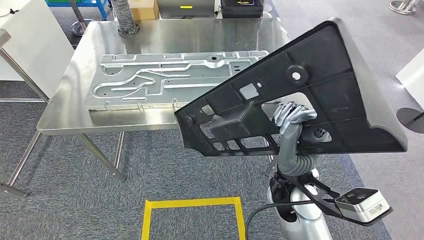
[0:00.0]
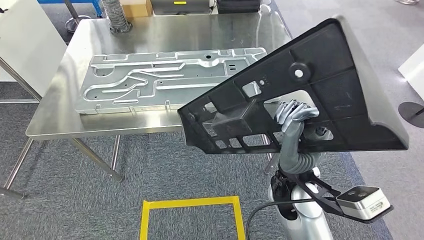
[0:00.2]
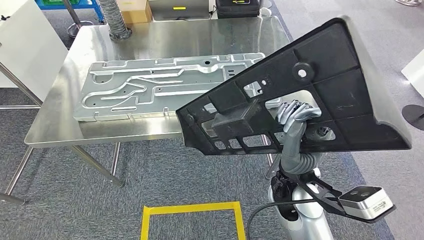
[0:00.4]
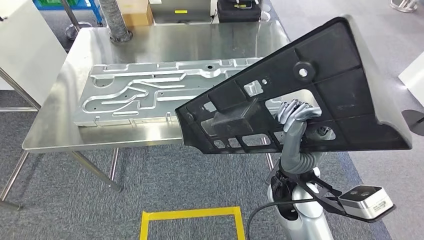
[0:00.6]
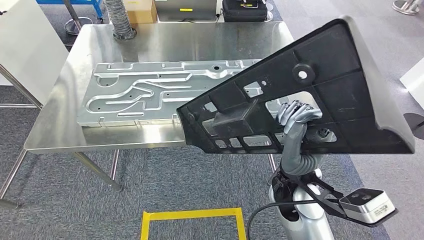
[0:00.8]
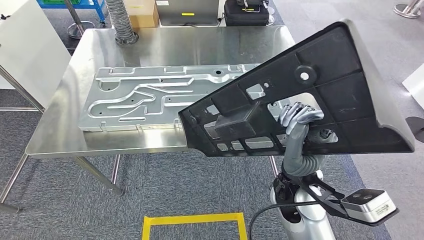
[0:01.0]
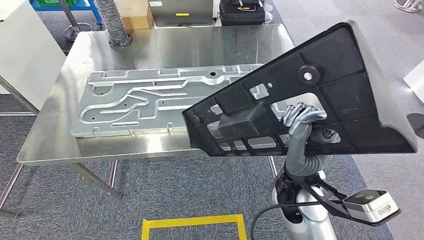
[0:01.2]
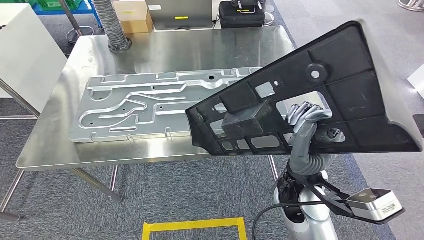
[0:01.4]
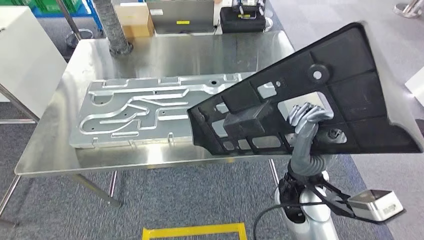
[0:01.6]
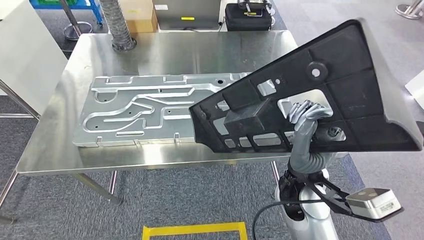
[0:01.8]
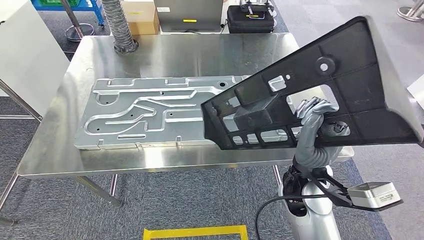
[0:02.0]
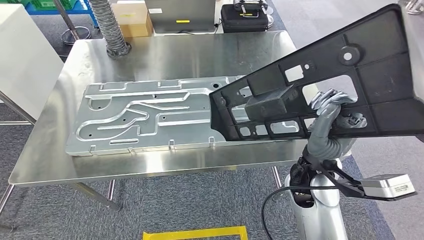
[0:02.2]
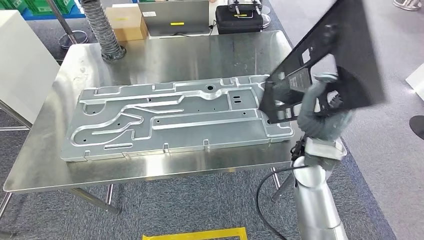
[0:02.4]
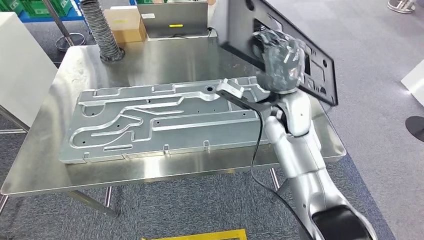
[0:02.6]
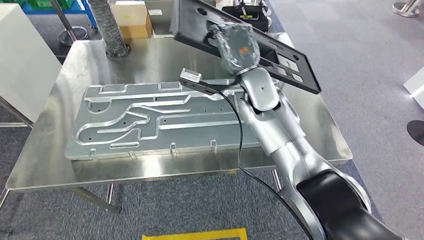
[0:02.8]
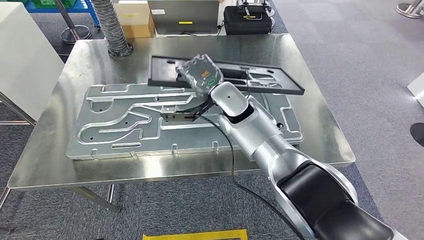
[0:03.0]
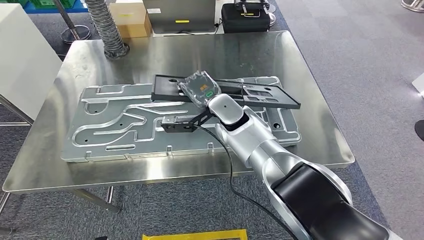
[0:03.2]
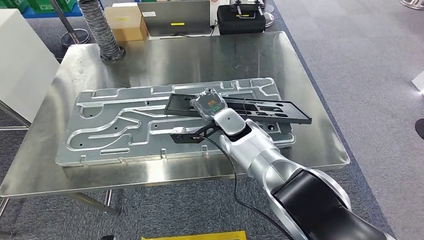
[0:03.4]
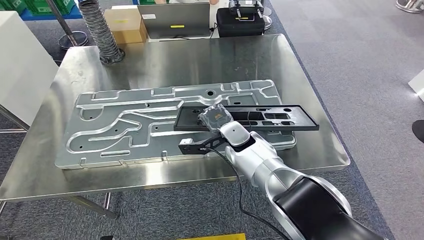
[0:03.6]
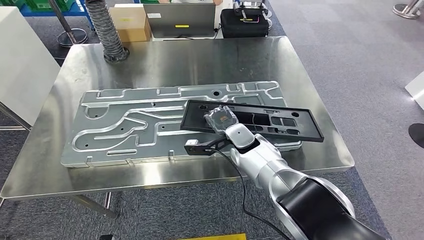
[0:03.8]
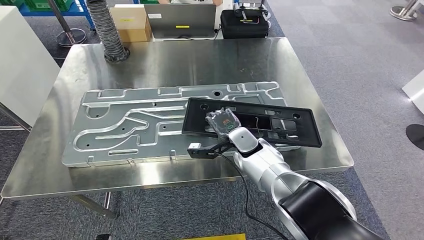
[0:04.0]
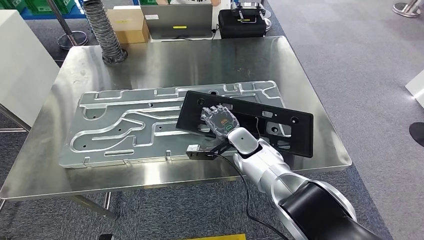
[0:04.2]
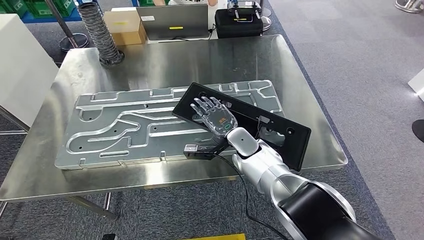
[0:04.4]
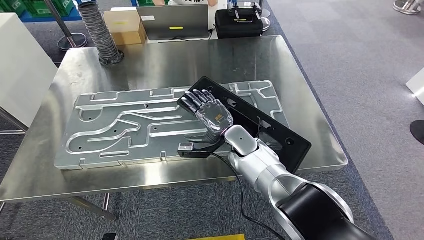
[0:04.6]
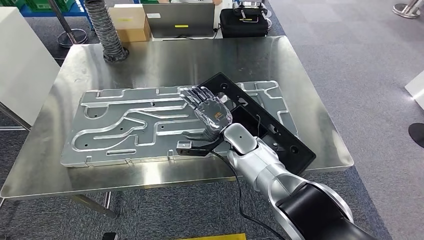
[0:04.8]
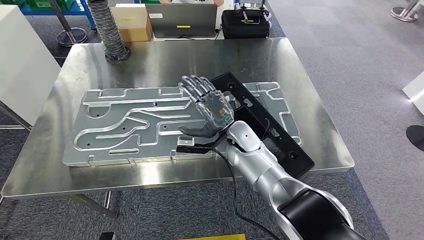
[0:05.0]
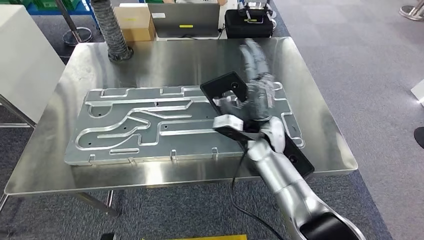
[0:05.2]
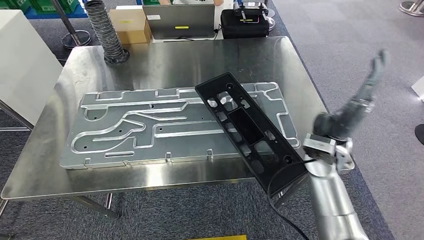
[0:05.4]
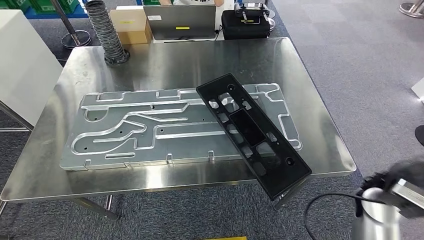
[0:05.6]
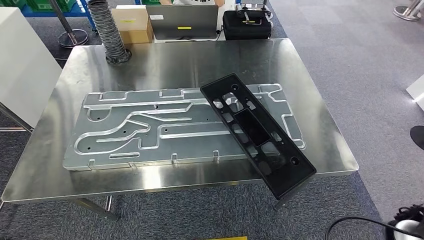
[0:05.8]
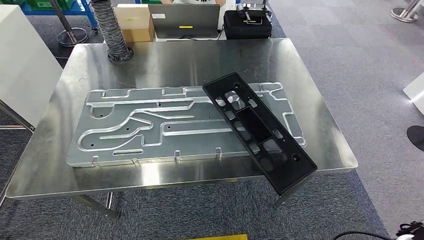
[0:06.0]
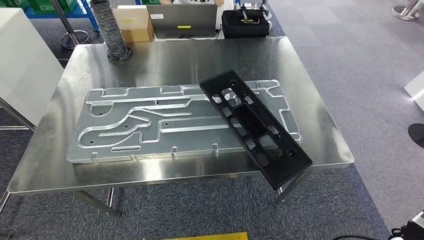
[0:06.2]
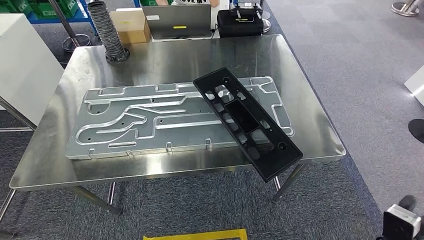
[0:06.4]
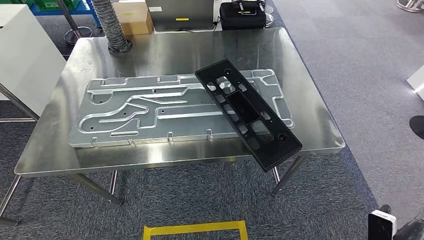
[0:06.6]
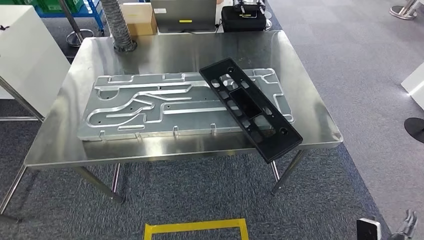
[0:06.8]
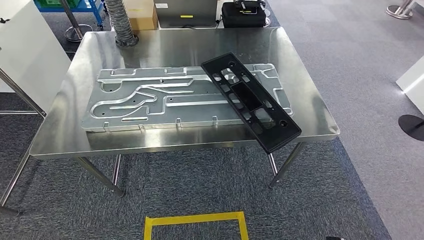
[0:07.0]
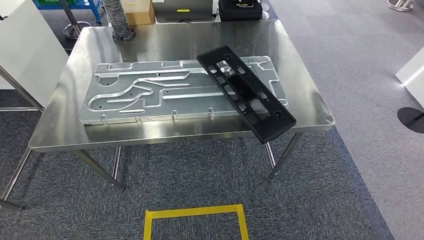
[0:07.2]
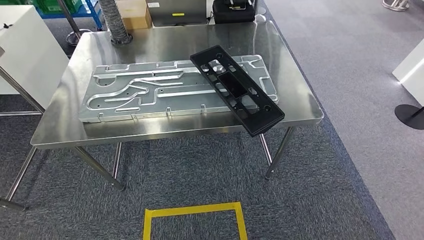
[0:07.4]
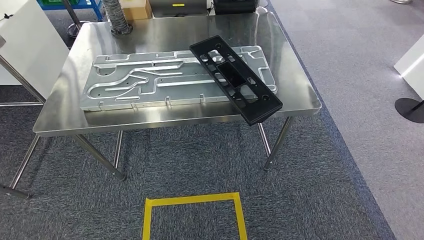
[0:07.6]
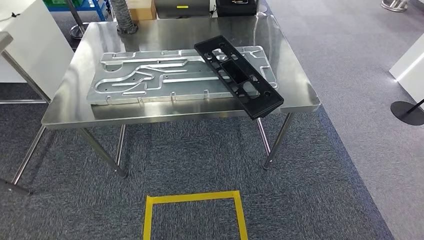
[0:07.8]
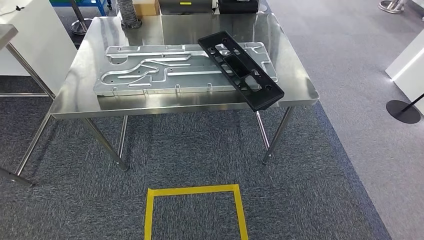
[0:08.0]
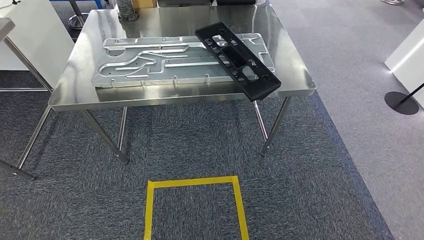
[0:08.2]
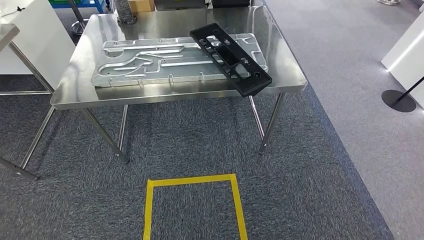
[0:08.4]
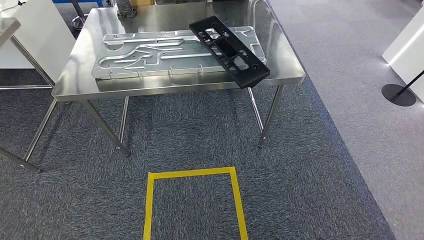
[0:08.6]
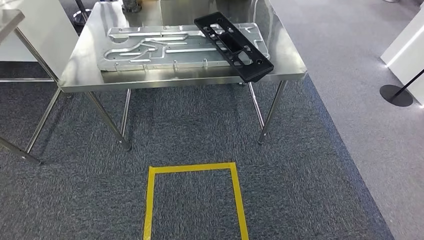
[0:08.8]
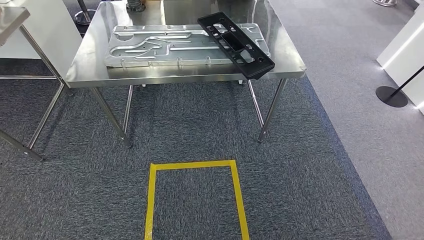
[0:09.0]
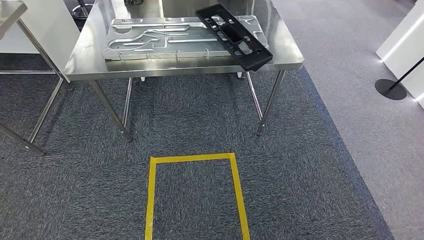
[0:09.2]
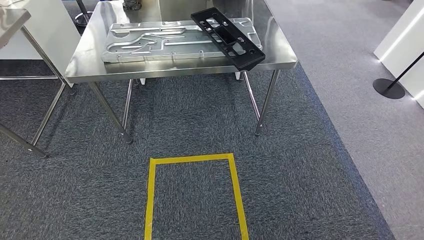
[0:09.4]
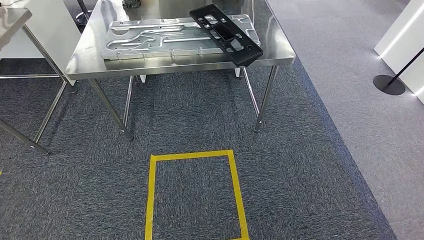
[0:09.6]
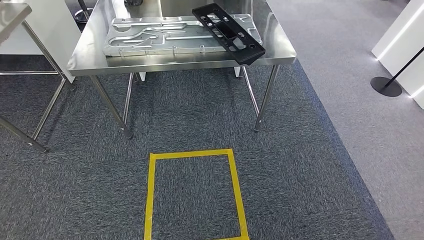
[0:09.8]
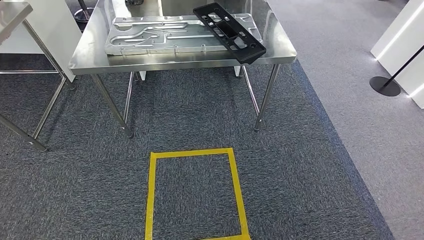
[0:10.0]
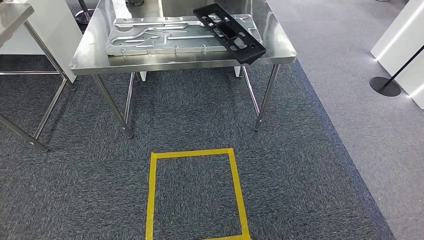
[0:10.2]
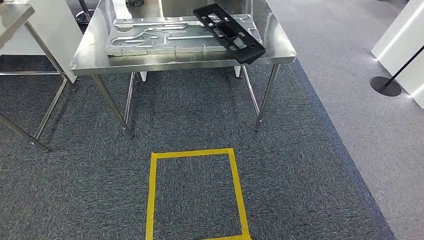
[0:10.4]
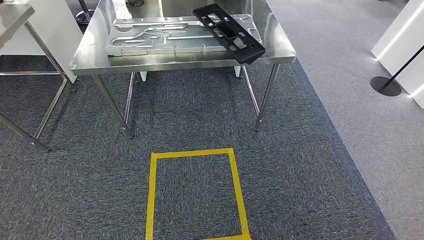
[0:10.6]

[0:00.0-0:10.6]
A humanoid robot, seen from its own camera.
Step, 0:00.6 to 0:05.8: Insert the large material into the corresponding slot on the workbench.
Step, 0:07.2 to 0:10.6: Move to the initial position of the shelf.
